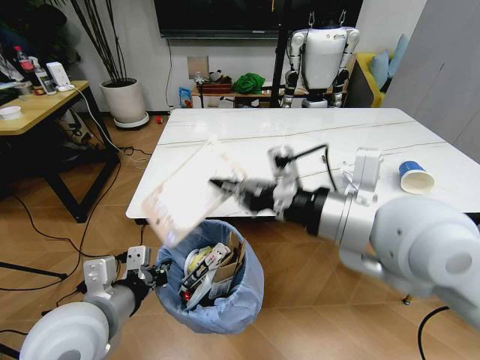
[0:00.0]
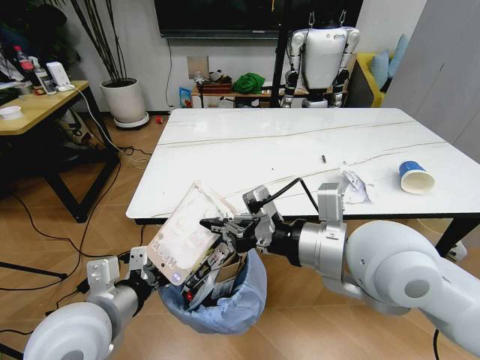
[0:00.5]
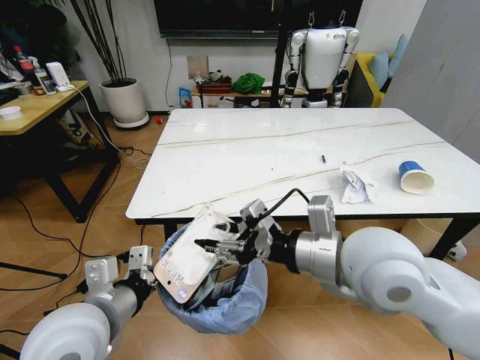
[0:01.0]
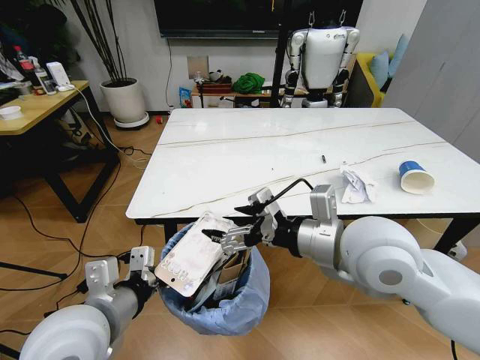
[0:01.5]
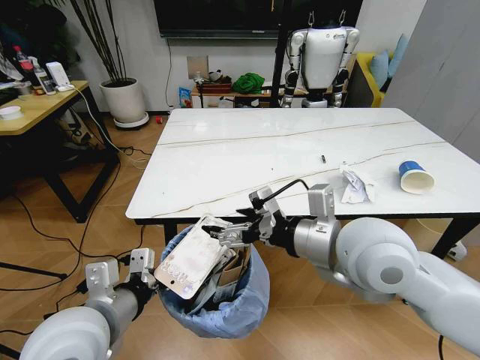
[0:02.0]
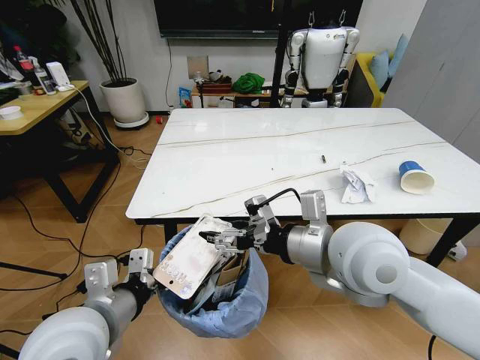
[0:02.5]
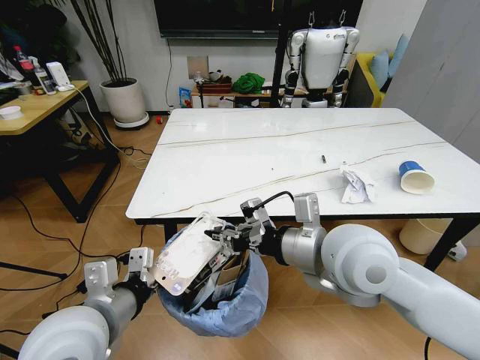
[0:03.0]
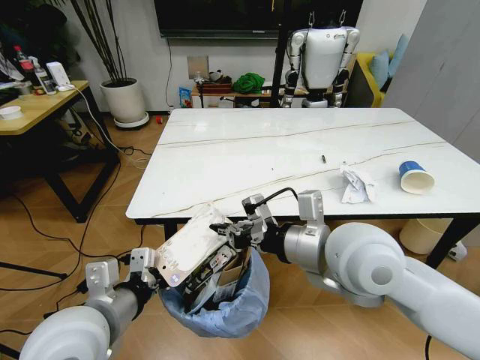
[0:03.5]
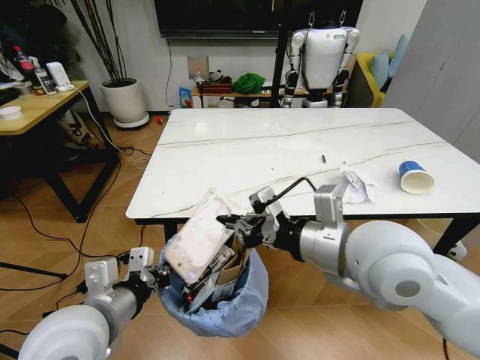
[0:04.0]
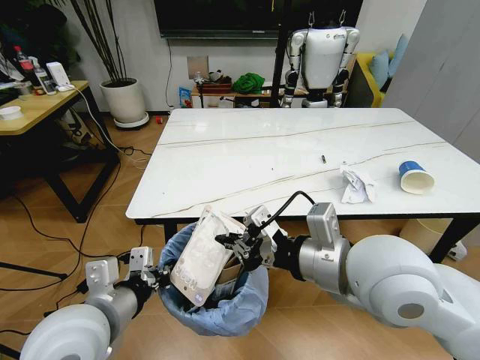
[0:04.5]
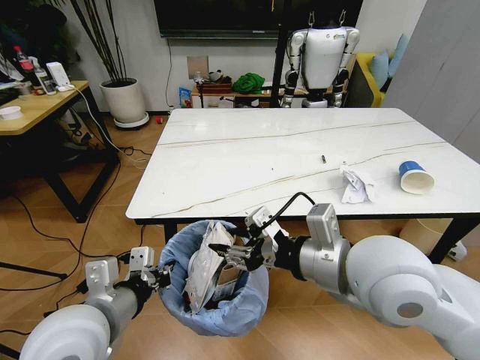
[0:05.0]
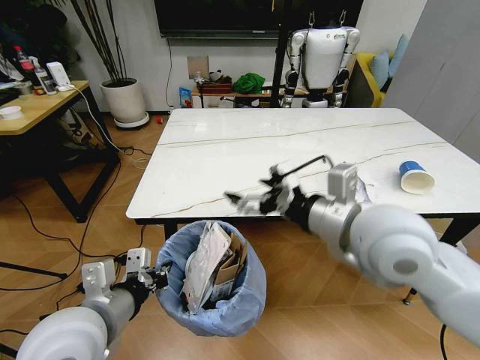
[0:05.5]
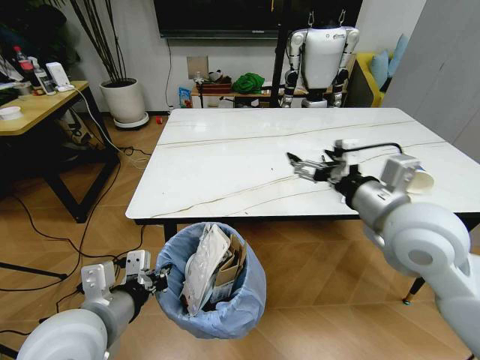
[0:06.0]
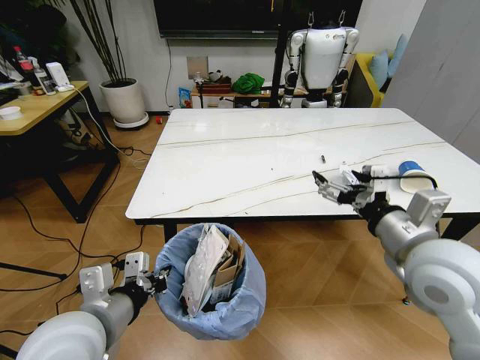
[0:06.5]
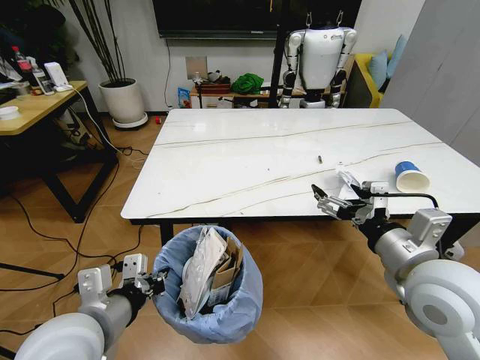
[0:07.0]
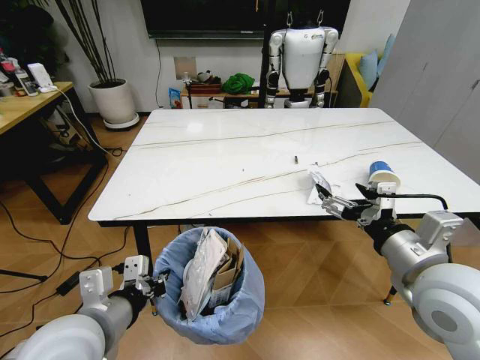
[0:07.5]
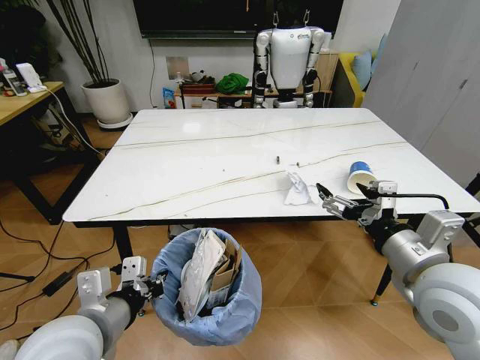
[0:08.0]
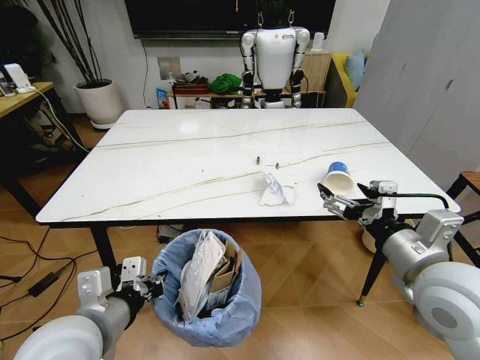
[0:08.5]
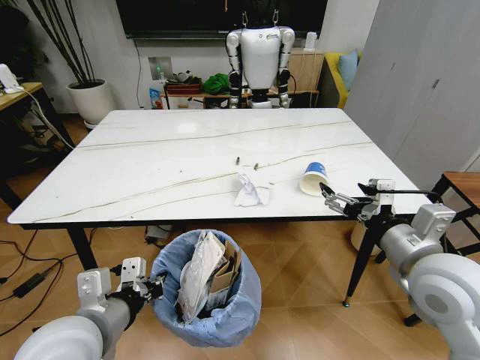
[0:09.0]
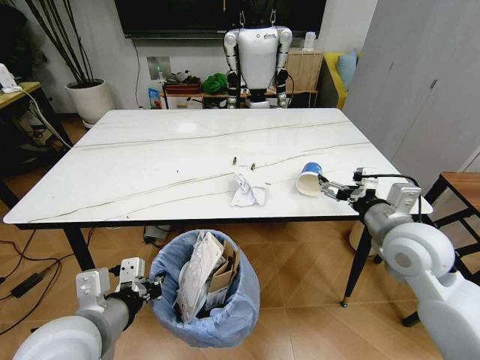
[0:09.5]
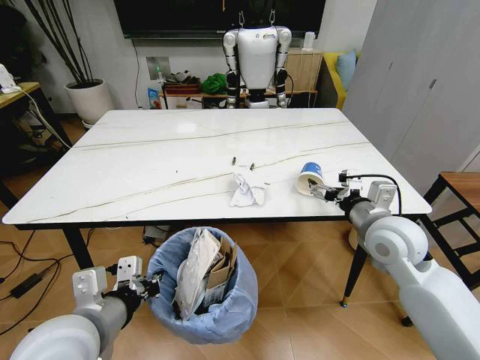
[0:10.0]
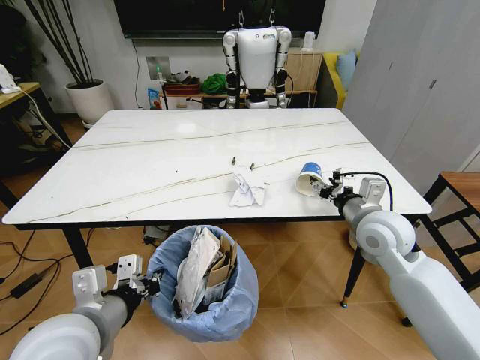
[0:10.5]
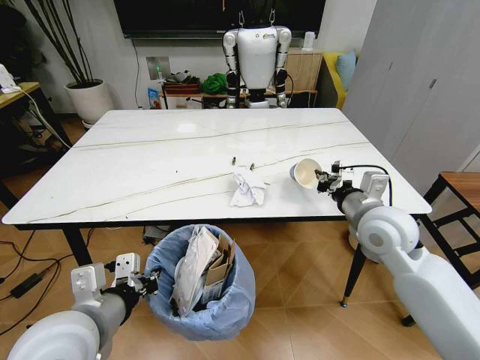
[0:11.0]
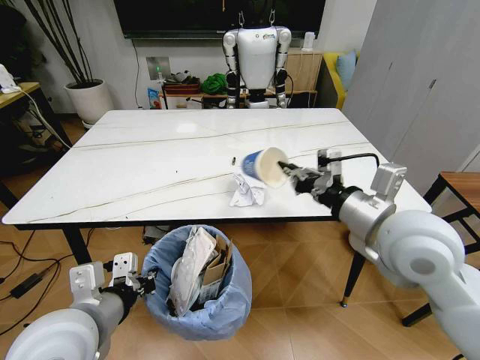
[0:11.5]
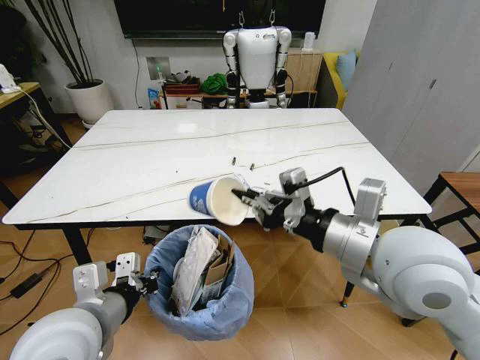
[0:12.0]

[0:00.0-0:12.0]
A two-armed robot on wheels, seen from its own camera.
Task of the whole recording: Pick up the trash bin and place the trash from the table into it.
0:00.0 to 0:02.0: The right gripper shifts approximately 5 cm downward, and opens its fingers.
0:02.0 to 0:04.0: The right gripper closes its fingers.
0:04.0 to 0:06.0: The right gripper travels to the right by roughly 5 cm, and opens.
0:06.0 to 0:08.0: The right gripper goes roughly 5 cm backward.
0:08.0 to 0:10.0: The right gripper moves forward and downward, roughly 15 cm.
0:10.0 to 0:12.0: The right gripper goes approximately 15 cm upward, backward and to the left, and closes its fingers.

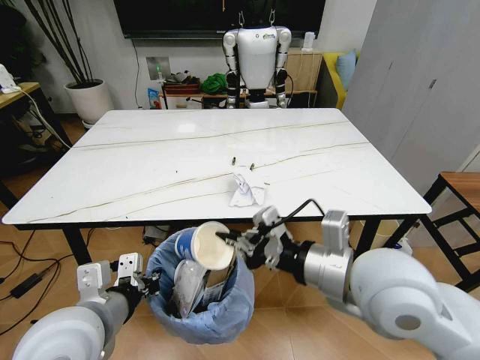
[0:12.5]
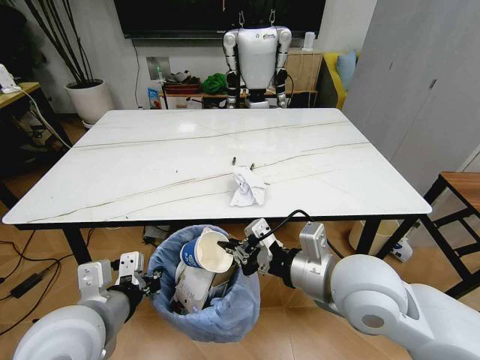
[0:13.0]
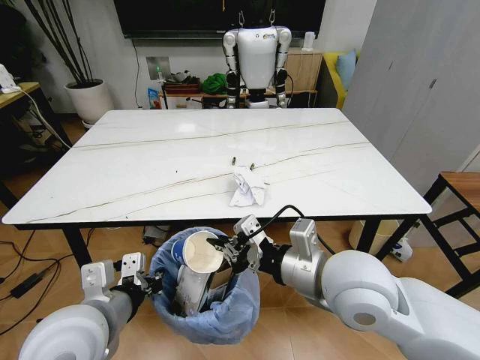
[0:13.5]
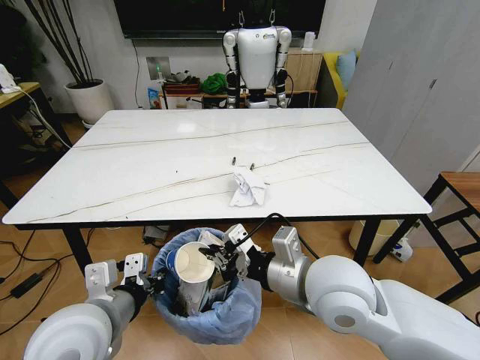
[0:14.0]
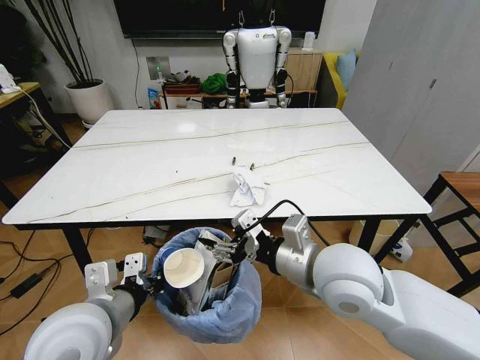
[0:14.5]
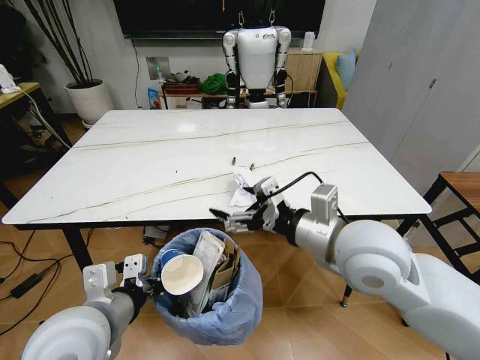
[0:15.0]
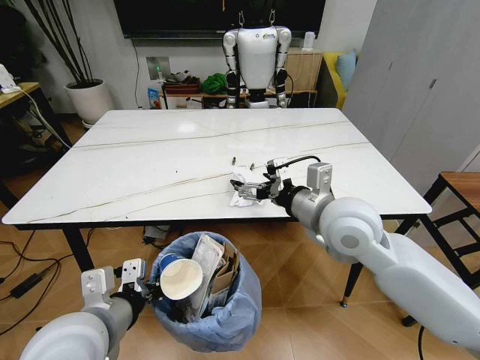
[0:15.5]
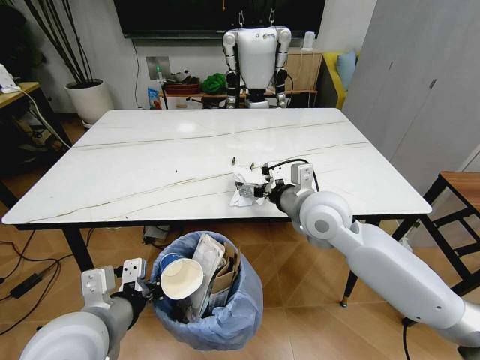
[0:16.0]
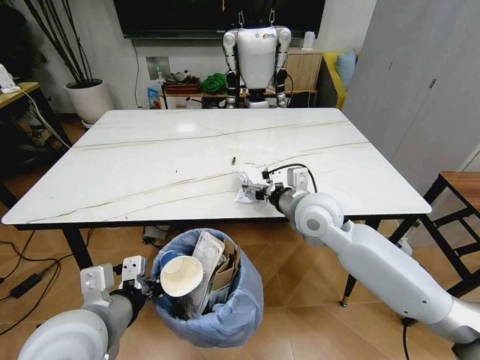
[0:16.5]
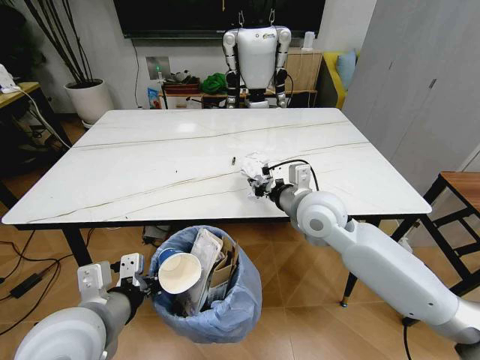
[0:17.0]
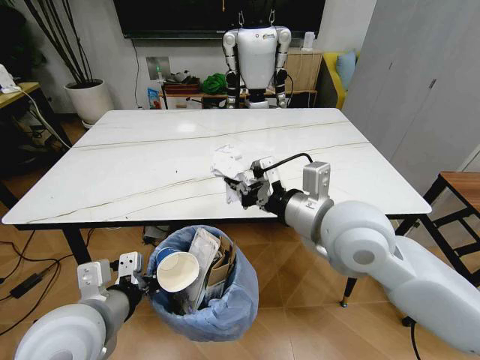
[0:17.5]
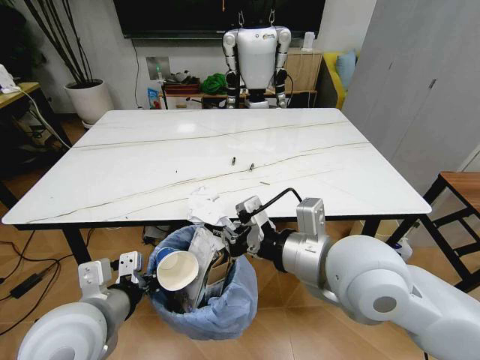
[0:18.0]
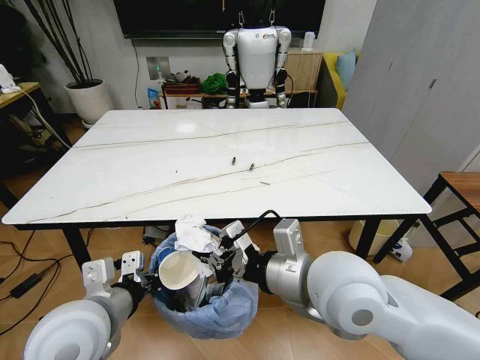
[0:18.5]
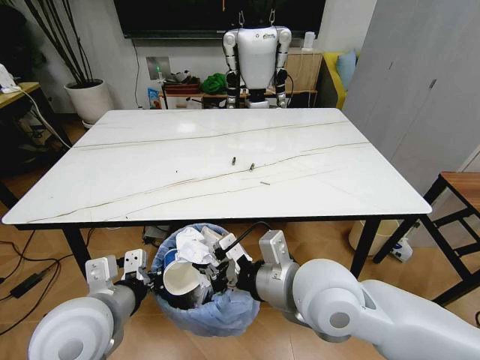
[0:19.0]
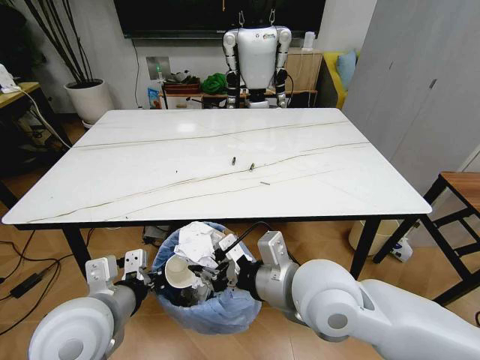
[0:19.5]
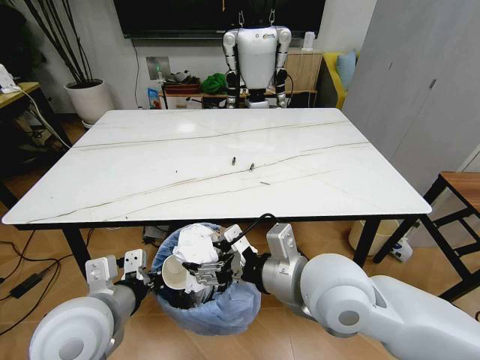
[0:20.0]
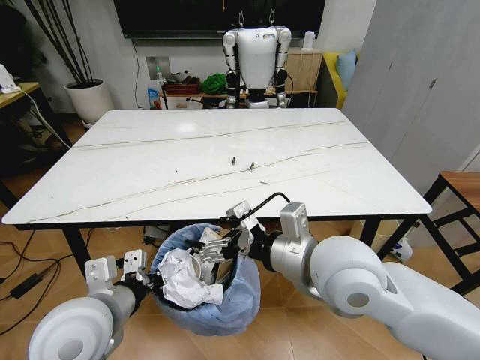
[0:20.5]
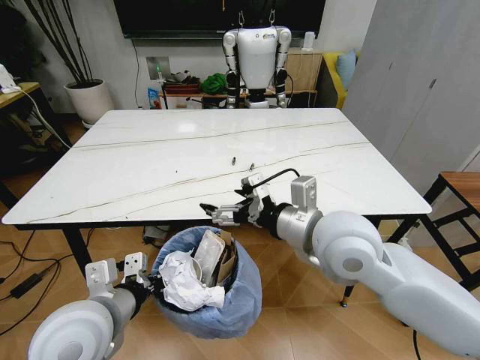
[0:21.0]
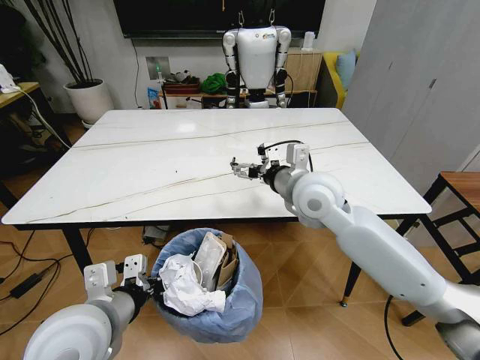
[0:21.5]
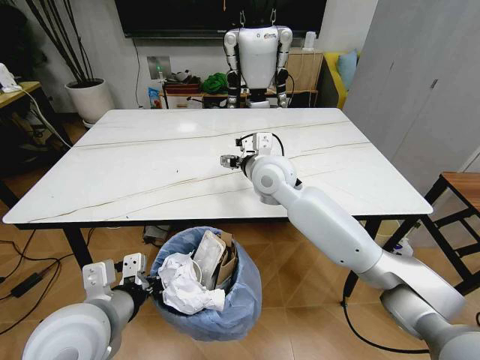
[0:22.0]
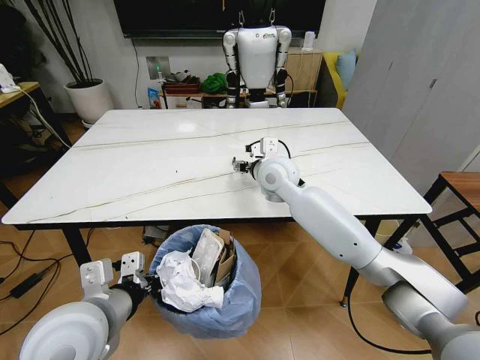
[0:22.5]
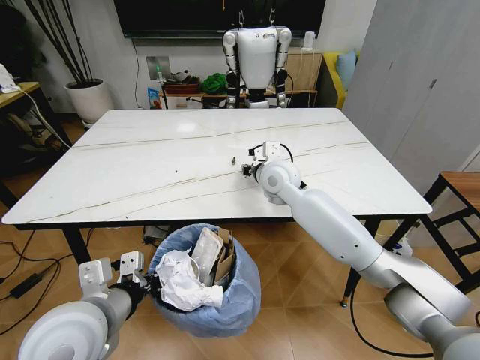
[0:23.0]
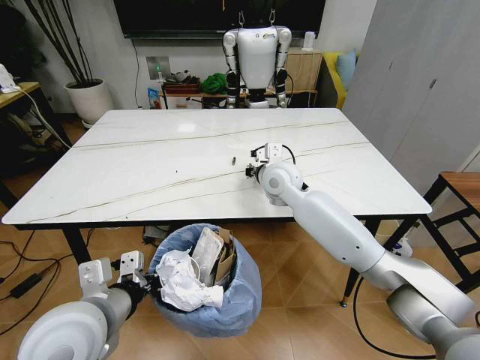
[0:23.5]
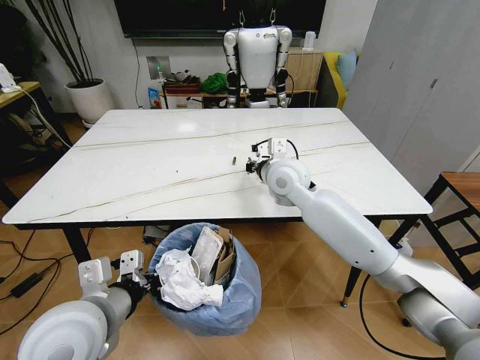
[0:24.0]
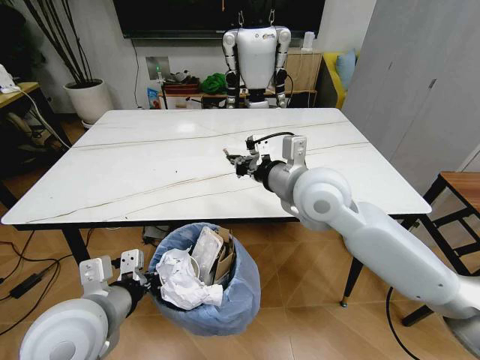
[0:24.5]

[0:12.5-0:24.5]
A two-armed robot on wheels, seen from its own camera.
Task of the whole recording: Pick up the trash bin and place the trash from the table into it.
0:12.5 to 0:14.5: The right gripper moves roughly 5 cm, and opens its fingers.
0:14.5 to 0:16.5: The right gripper goes some 15 cm forward.
0:16.5 to 0:18.5: The right gripper travels backward by some 15 cm, and closes its fingers.
0:18.5 to 0:20.5: The right gripper opens its fingers.
0:20.5 to 0:22.5: The right gripper moves forward, about 25 cm.
0:22.5 to 0:24.5: The right gripper heads backward and upward, covering about 15 cm, and closes.

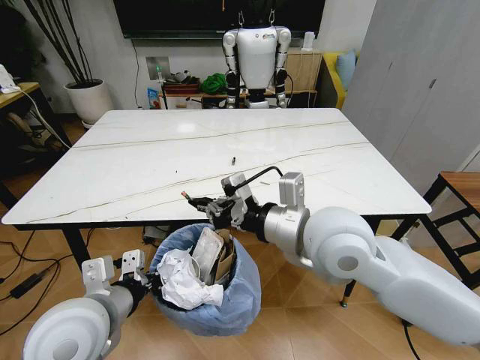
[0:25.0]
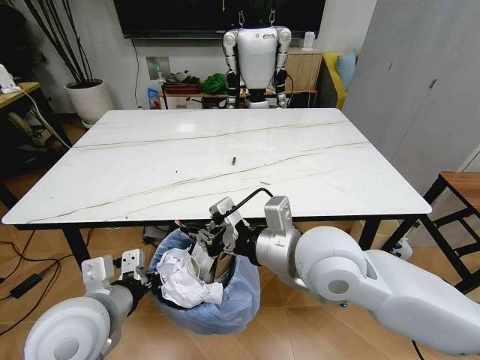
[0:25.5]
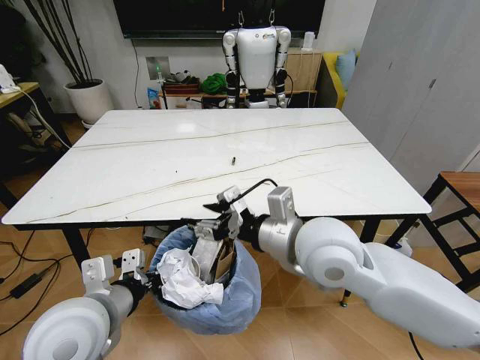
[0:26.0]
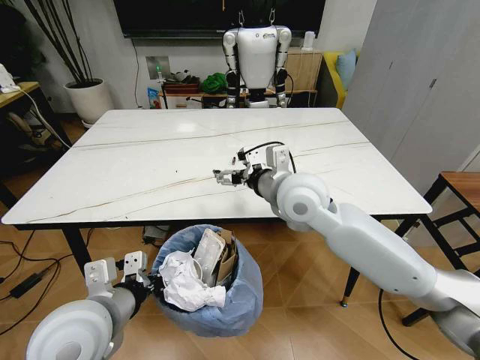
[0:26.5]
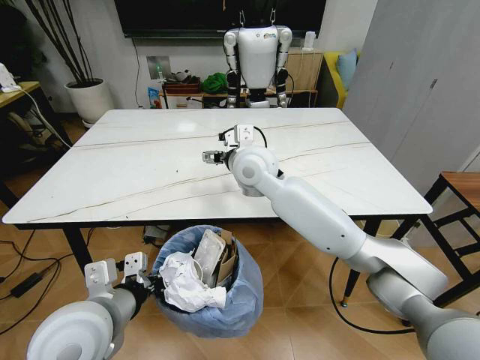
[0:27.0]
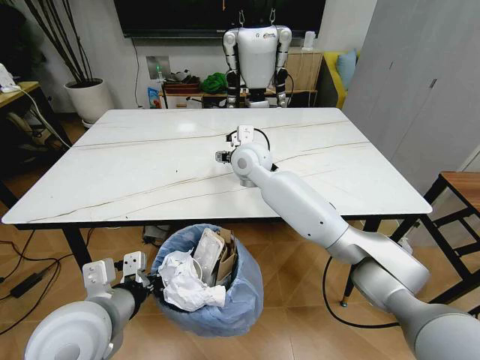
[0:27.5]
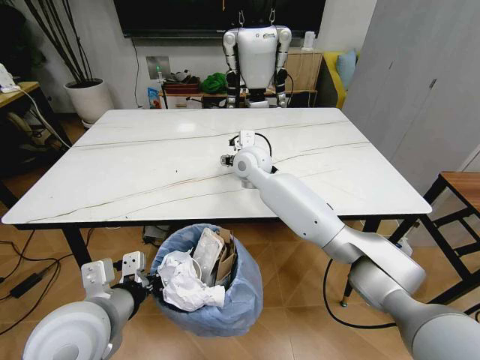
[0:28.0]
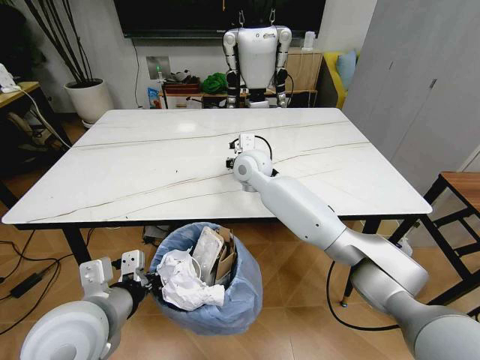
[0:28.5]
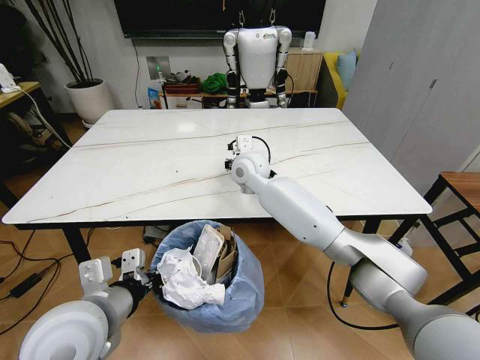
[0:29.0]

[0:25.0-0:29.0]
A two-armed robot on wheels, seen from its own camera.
Task of the whole recording: Pick up the trash bin and place the trash from the table into it.
0:25.0 to 0:27.0: The right gripper heads forward and to the left, covering roughly 20 cm, and opens.
0:27.0 to 0:29.0: The right gripper shifts roughly 10 cm forward and downward, and closes.
